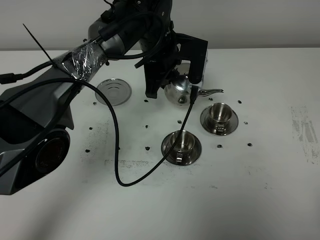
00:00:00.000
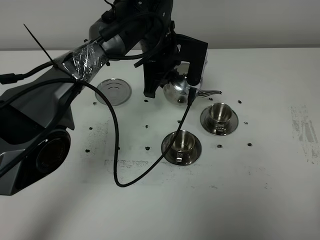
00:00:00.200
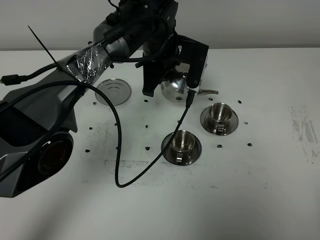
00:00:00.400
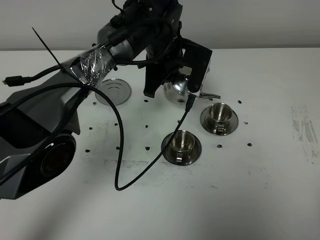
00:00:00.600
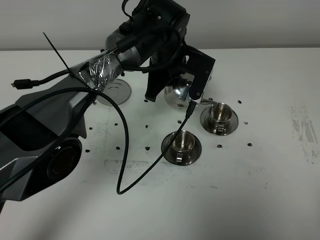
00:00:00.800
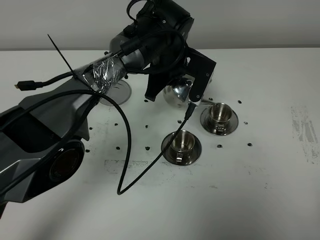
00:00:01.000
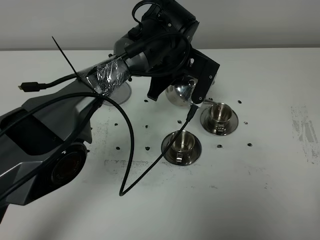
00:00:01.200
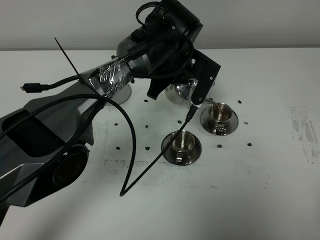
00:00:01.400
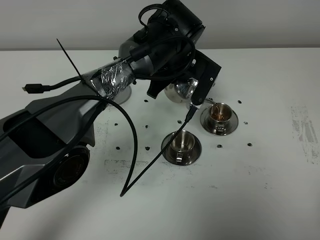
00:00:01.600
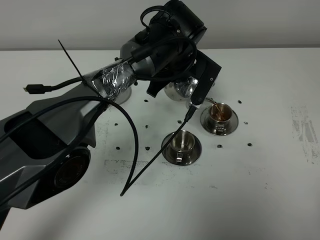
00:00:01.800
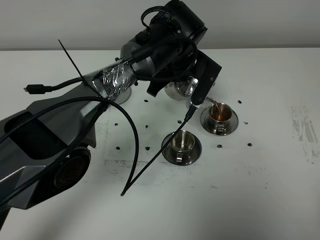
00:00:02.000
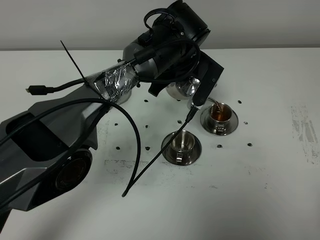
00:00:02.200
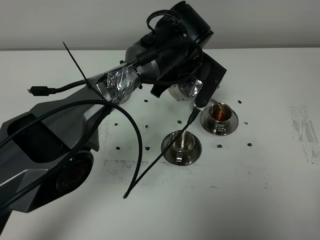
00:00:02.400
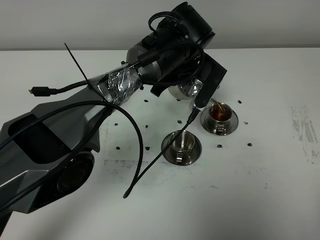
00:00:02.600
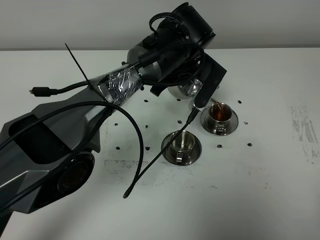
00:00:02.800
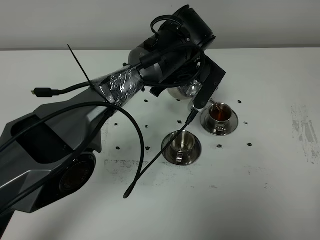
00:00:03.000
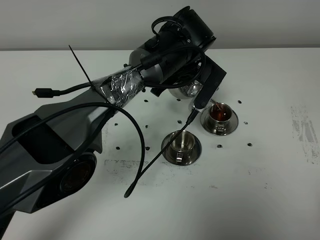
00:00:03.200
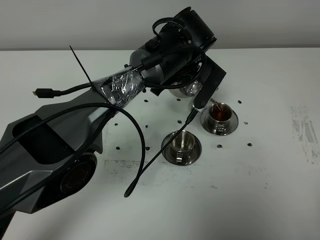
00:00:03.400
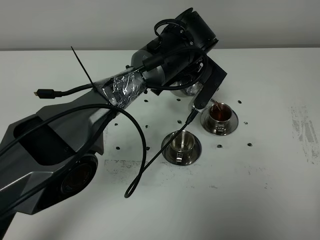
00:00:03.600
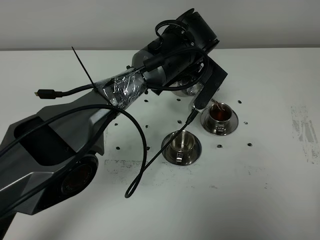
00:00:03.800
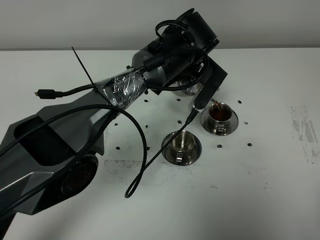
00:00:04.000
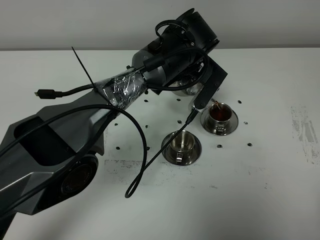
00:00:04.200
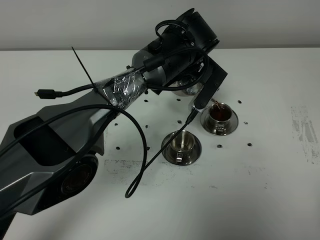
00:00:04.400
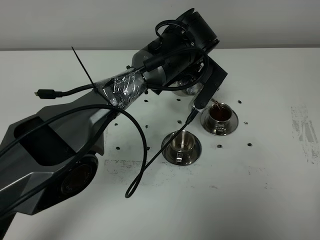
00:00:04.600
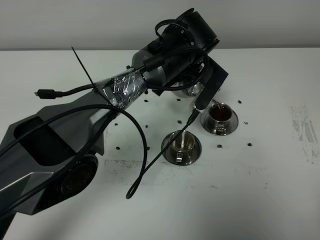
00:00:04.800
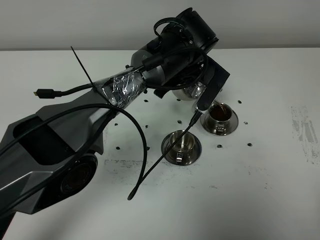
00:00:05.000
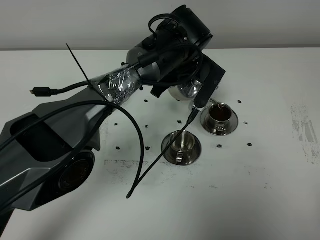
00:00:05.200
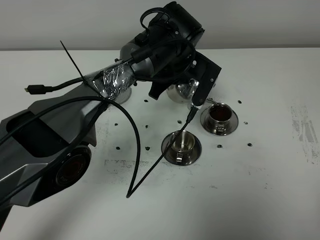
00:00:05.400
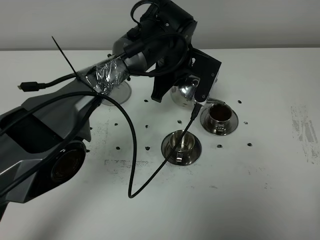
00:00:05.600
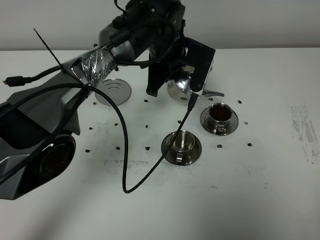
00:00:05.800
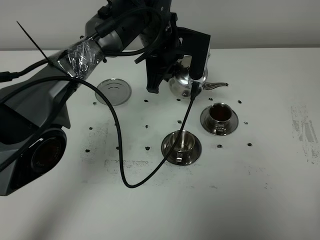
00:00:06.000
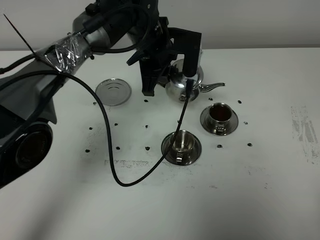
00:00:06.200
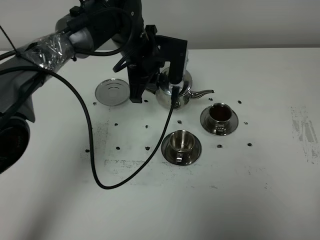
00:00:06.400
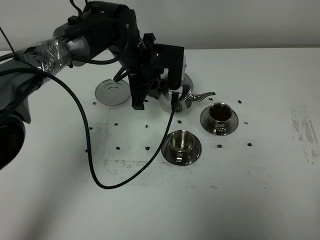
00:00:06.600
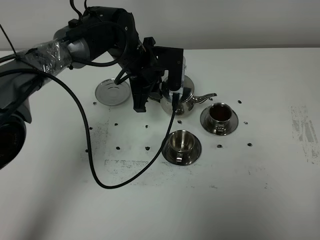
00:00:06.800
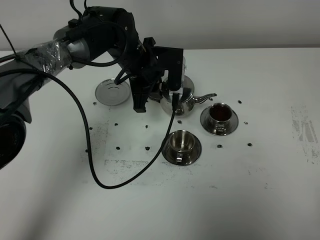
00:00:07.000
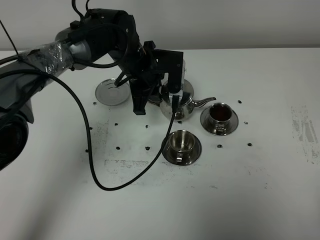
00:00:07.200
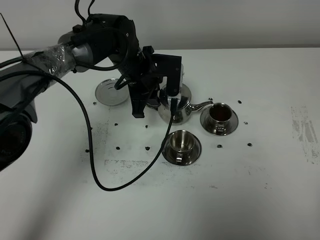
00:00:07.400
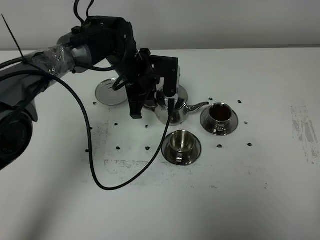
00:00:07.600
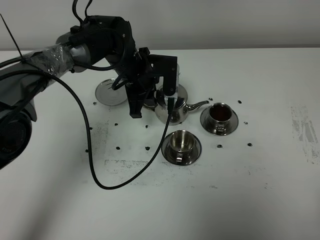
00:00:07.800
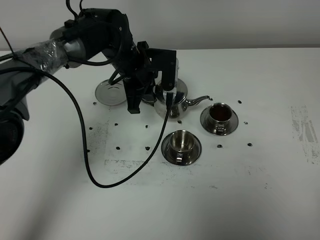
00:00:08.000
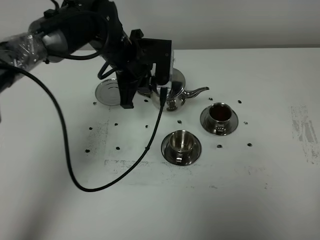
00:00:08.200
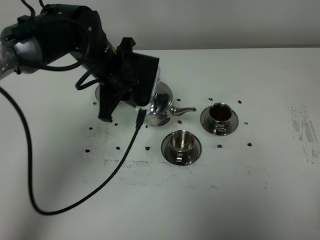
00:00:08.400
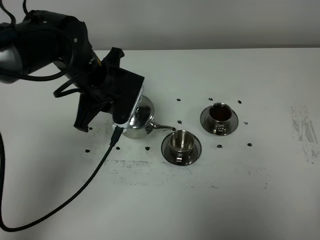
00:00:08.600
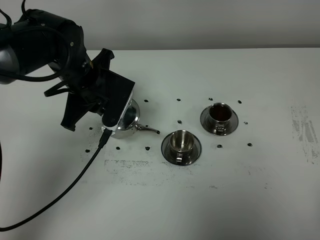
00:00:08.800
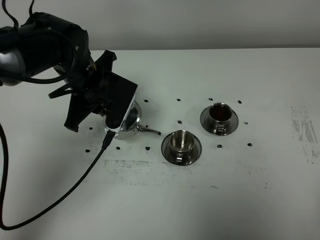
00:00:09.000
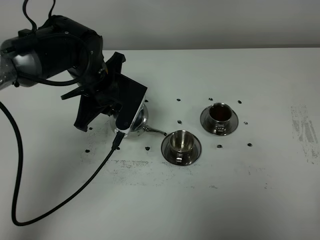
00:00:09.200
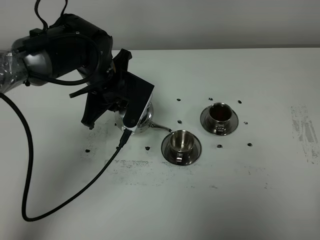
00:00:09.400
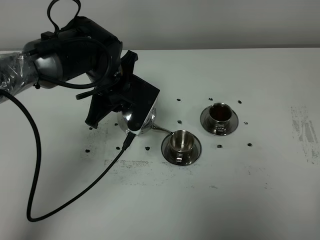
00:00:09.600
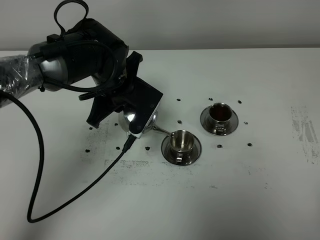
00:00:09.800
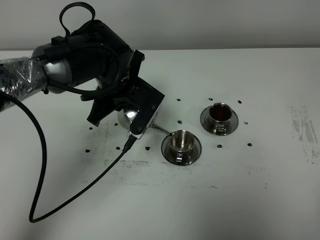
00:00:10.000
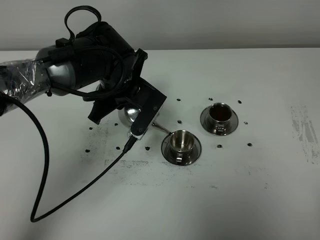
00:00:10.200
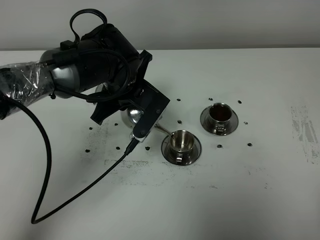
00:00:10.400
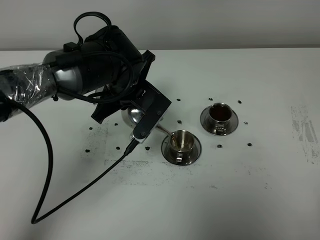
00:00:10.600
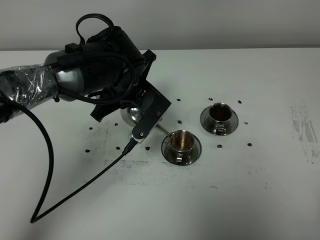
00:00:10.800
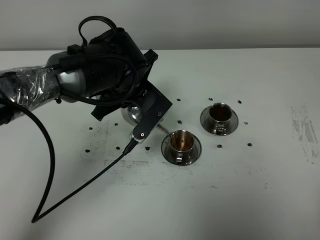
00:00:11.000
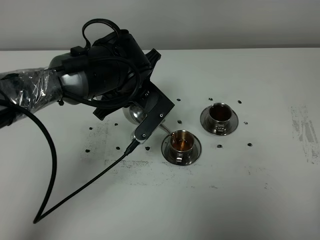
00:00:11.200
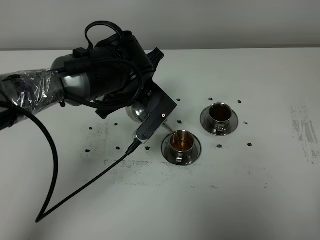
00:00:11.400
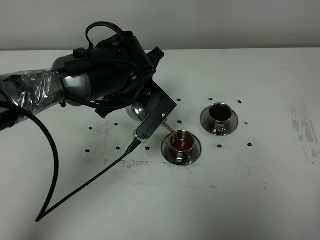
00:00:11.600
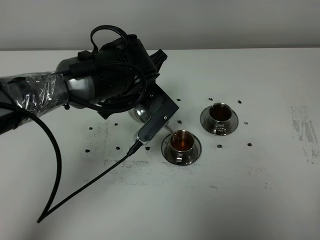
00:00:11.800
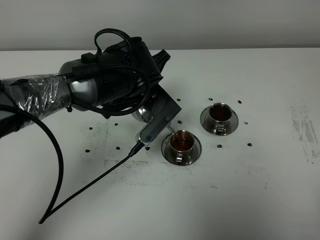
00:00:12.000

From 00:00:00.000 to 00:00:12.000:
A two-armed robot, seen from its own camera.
Task of the whole recording: grasp the stainless steel teapot and pour the tea into the two stainless steel teacups one by one, put the stainless steel teapot back in its original place.
From 00:00:01.600 to 00:00:03.000: The grippers move only a little.
From 00:00:03.000 to 00:00:04.400: Neither gripper changes place.
From 00:00:04.400 to 00:00:06.000: The left gripper shifts approximately 5 cm to the left.
From 00:00:06.000 to 00:00:07.600: The left gripper moves downward and to the left, about 10 cm.
From 00:00:07.600 to 00:00:09.000: The left gripper heads backward, to the left and upward, covering about 10 cm.
From 00:00:09.000 to 00:00:10.400: The left gripper moves to the right, roughly 5 cm.
From 00:00:10.400 to 00:00:12.000: The grippers move only a little.

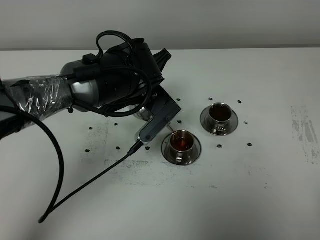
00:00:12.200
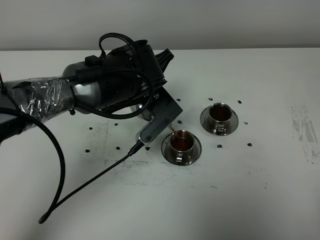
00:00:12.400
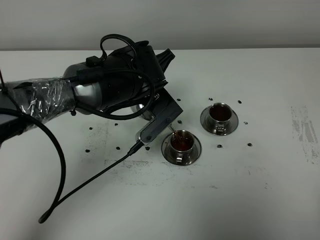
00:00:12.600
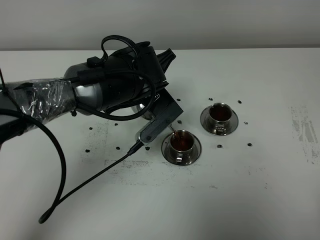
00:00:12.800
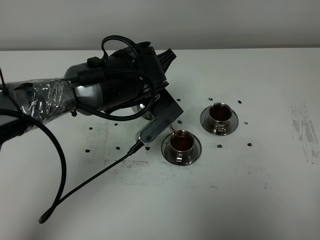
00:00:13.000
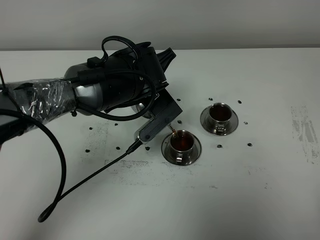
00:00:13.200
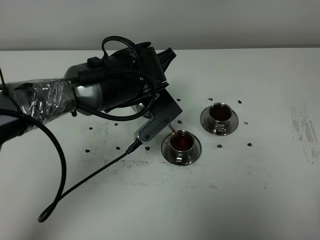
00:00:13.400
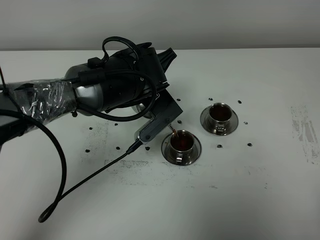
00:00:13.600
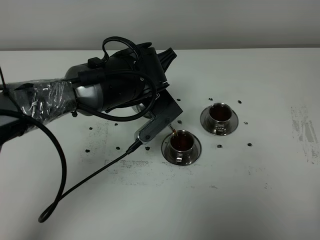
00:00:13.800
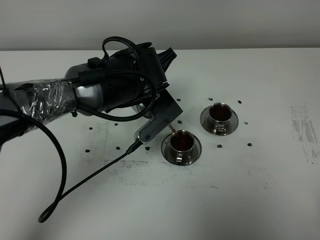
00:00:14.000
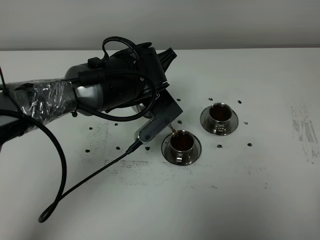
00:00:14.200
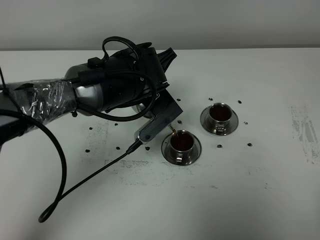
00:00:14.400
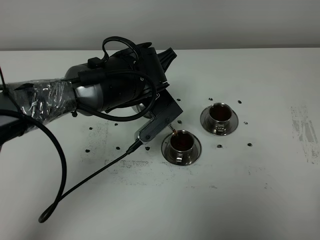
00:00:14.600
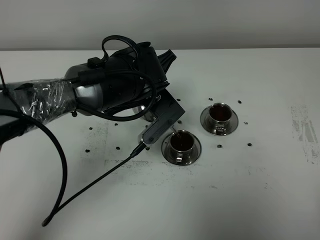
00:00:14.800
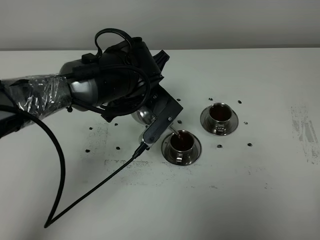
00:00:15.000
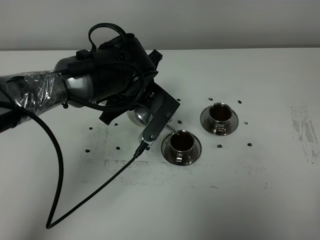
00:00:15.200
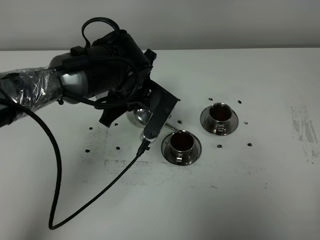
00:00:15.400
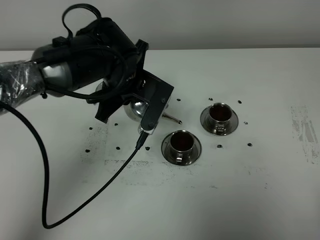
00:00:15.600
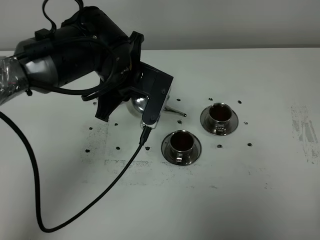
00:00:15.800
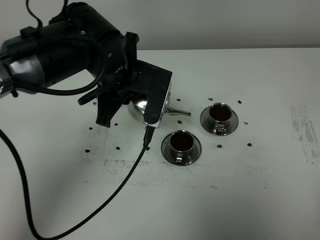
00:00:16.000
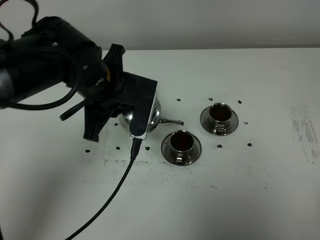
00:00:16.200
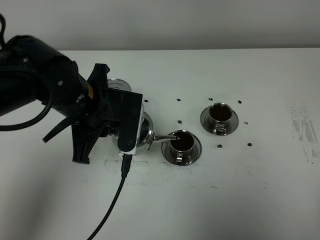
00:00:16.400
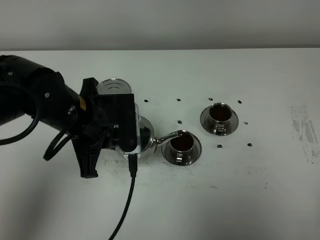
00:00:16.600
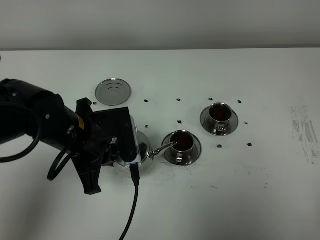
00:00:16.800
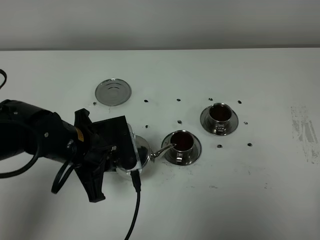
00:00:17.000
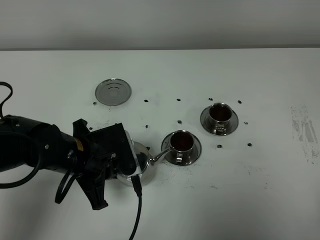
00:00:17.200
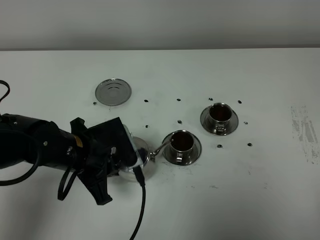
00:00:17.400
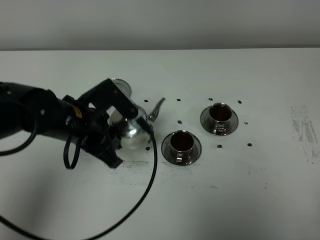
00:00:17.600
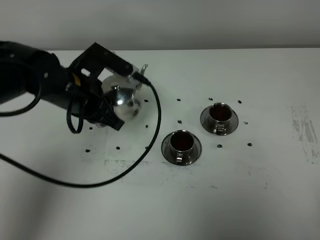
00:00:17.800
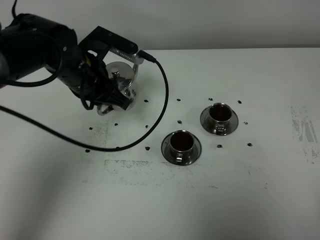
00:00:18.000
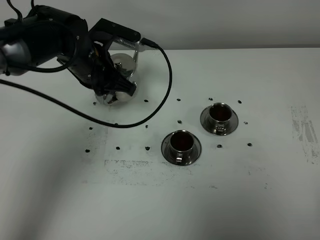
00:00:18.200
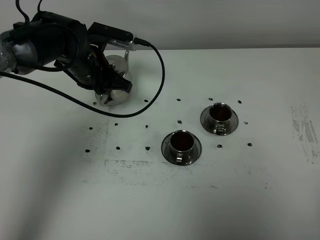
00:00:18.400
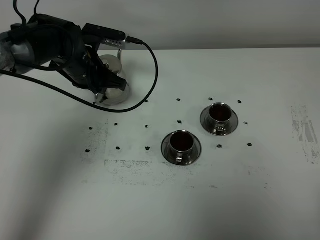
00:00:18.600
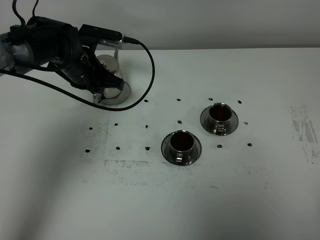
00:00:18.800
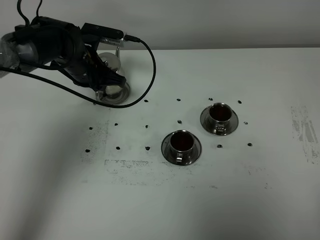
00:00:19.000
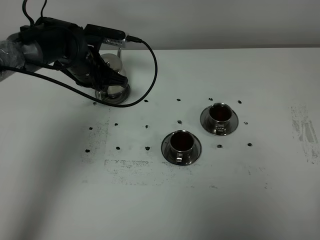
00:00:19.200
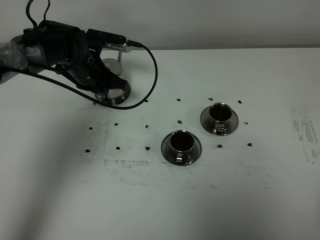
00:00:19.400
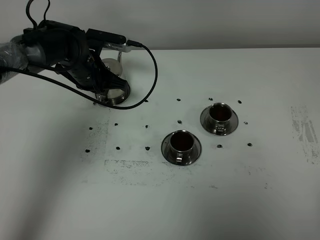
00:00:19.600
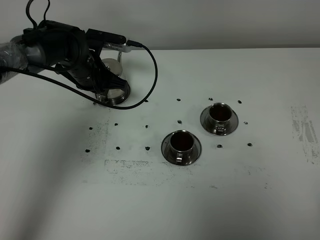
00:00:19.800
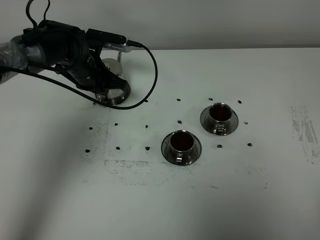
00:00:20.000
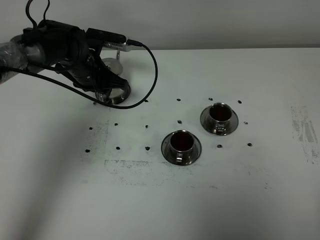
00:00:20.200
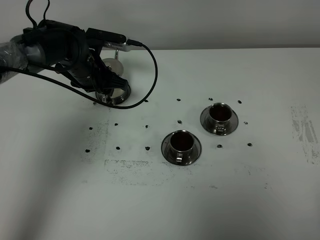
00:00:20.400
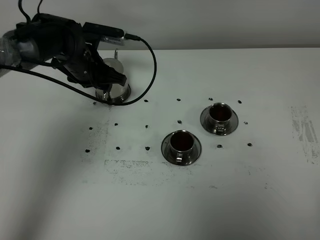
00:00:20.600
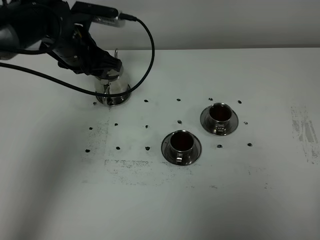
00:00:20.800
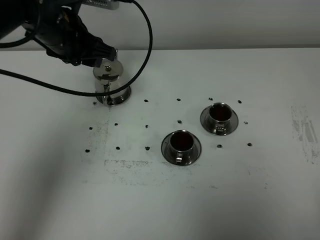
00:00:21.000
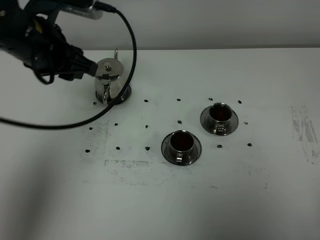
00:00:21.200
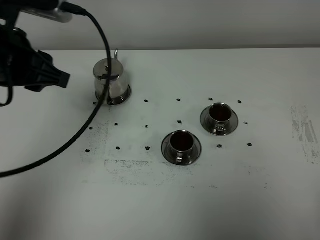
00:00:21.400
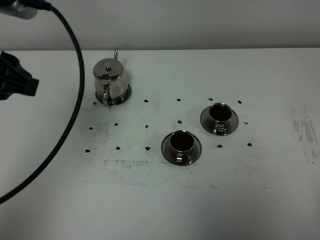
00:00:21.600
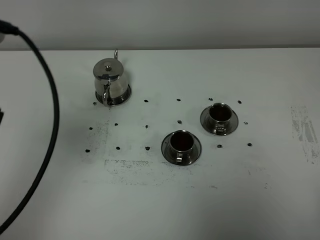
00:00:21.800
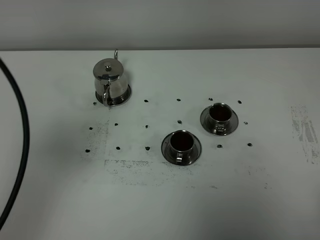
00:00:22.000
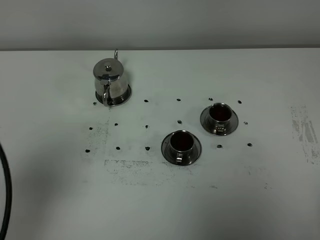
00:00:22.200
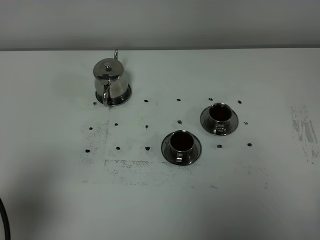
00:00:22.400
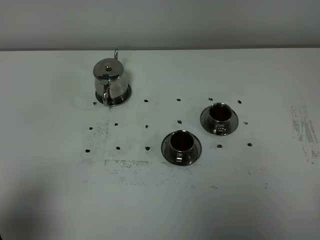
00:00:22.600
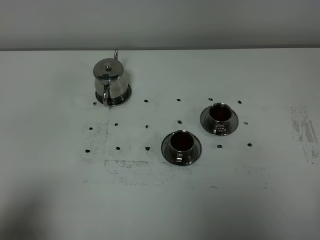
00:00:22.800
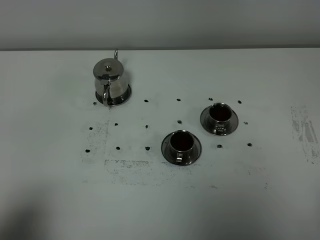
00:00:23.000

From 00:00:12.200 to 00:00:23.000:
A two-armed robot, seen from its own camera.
Task of the whole recording: grasp the stainless steel teapot and pour the tea into the two stainless steel teacups one by one, put the stainless steel teapot back in its original place.
Step, from 00:00:12.200 to 00:00:15.600: Pour tea into the teacup with the left gripper.
From 00:00:12.200 to 00:00:15.200: The grippers move only a little.
From 00:00:15.200 to 00:00:16.800: The left gripper is displaced backward and to the left by some 15 cm.
From 00:00:16.800 to 00:00:18.400: The left gripper heads forward, covering approximately 15 cm.
From 00:00:18.400 to 00:00:20.000: The grippers stay close to where they were, moving slightly.
From 00:00:20.000 to 00:00:21.400: The left gripper travels upward and backward by about 25 cm, and opens its fingers.
From 00:00:21.400 to 00:00:23.000: The left gripper heads backward, covering some 25 cm.
